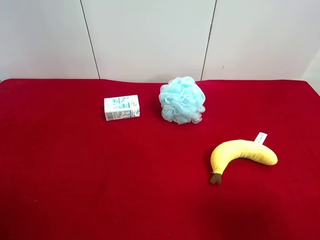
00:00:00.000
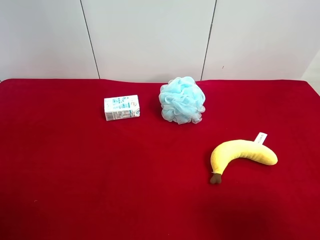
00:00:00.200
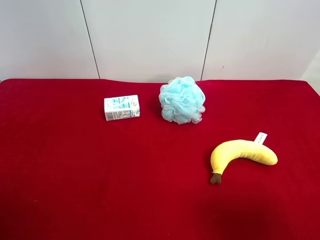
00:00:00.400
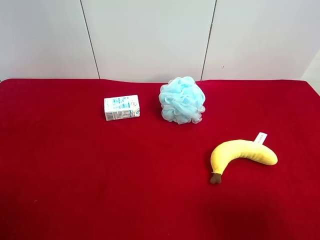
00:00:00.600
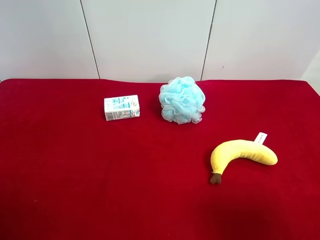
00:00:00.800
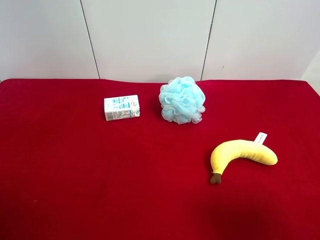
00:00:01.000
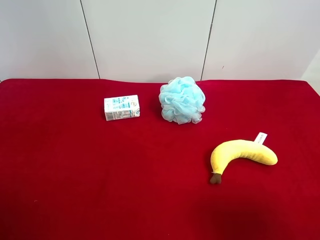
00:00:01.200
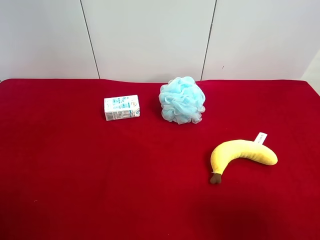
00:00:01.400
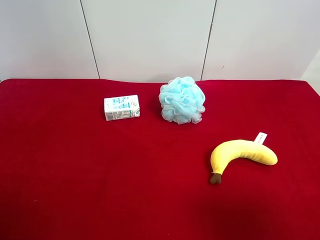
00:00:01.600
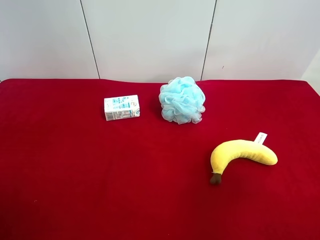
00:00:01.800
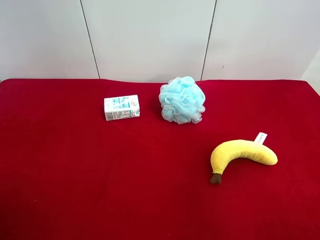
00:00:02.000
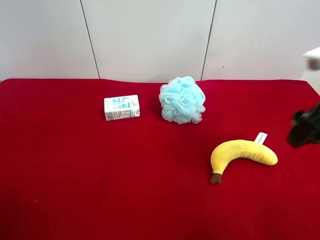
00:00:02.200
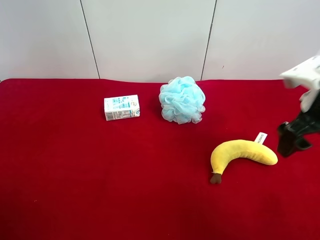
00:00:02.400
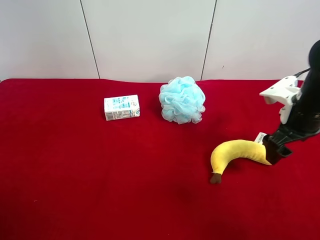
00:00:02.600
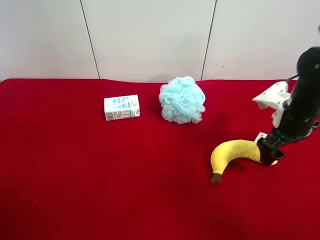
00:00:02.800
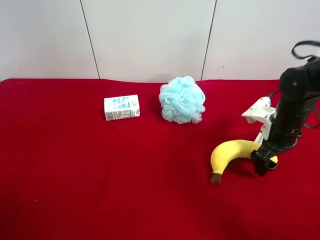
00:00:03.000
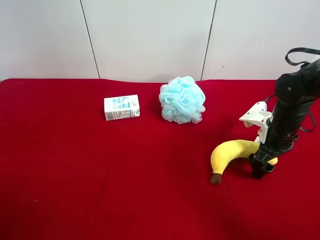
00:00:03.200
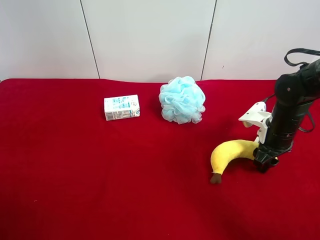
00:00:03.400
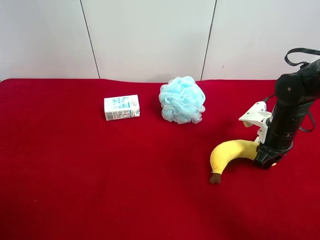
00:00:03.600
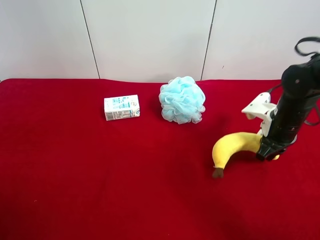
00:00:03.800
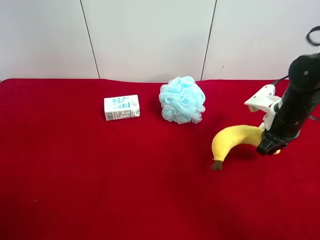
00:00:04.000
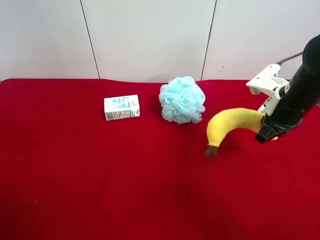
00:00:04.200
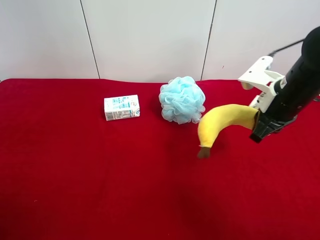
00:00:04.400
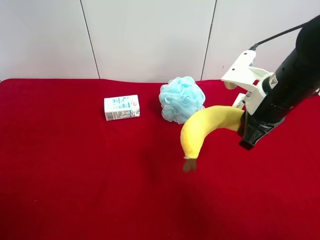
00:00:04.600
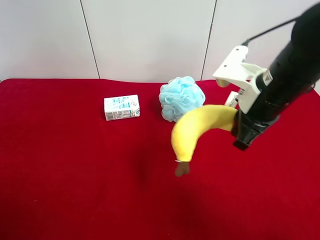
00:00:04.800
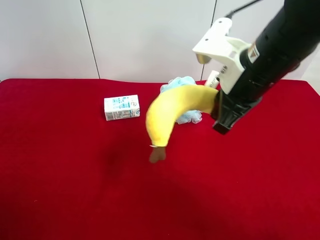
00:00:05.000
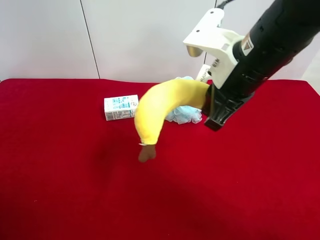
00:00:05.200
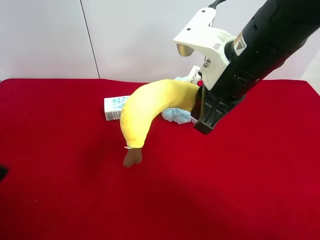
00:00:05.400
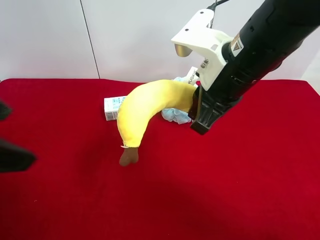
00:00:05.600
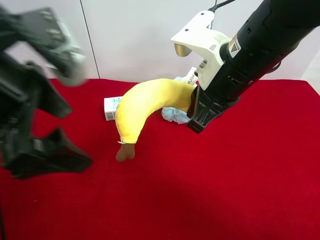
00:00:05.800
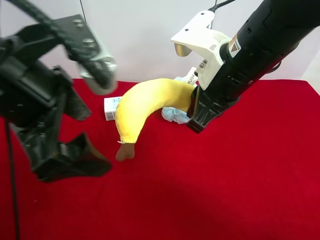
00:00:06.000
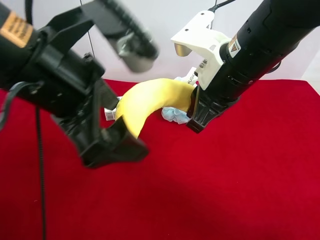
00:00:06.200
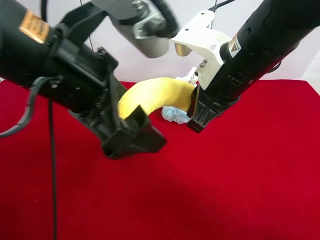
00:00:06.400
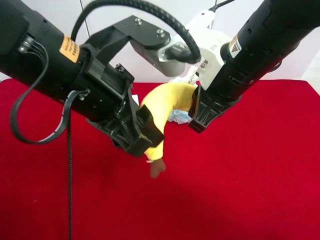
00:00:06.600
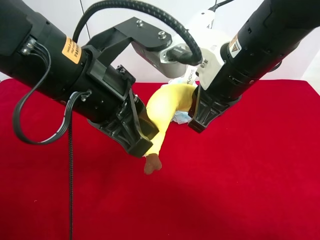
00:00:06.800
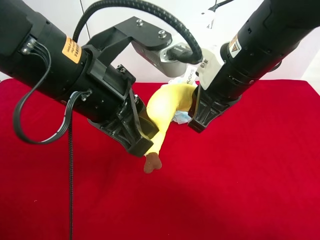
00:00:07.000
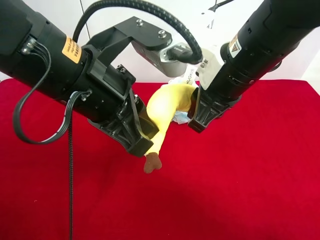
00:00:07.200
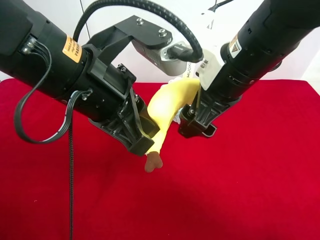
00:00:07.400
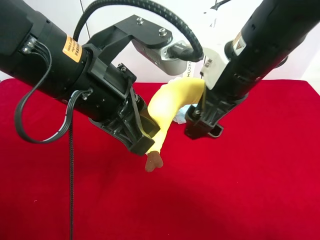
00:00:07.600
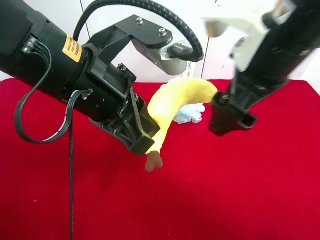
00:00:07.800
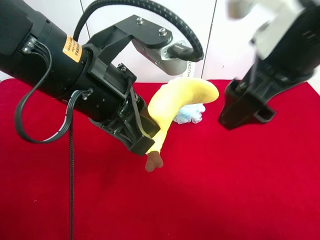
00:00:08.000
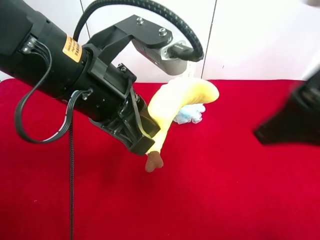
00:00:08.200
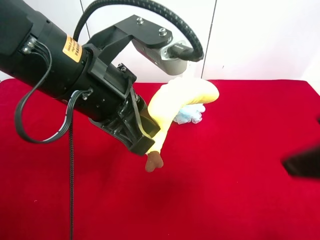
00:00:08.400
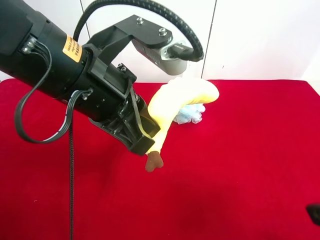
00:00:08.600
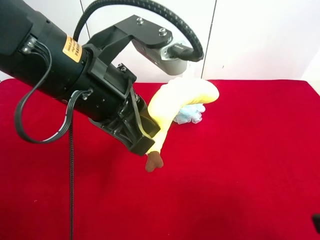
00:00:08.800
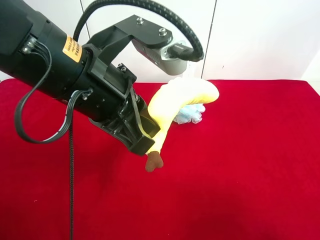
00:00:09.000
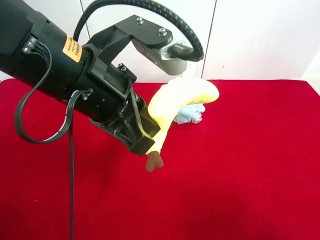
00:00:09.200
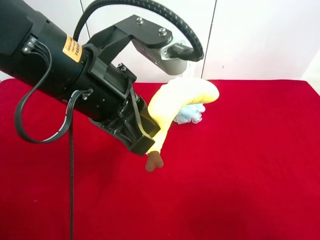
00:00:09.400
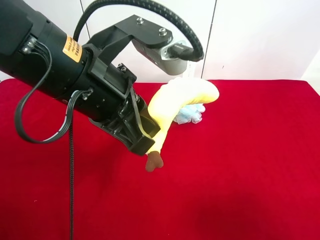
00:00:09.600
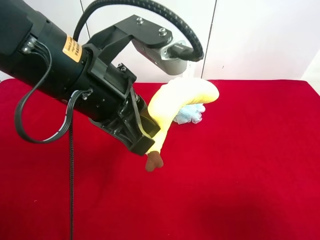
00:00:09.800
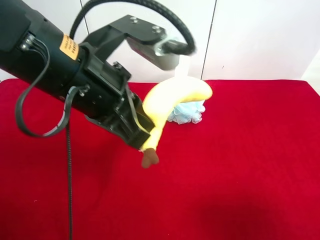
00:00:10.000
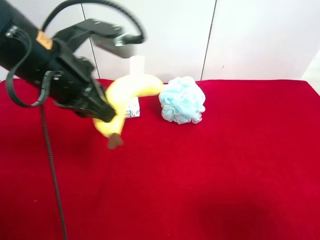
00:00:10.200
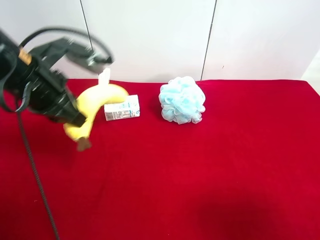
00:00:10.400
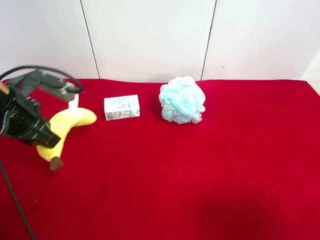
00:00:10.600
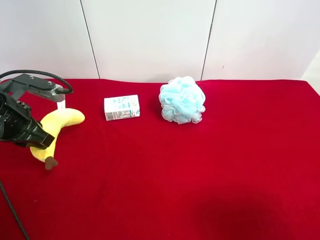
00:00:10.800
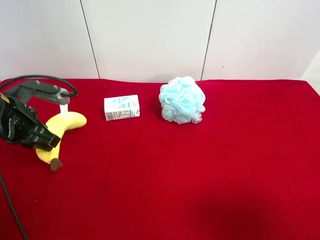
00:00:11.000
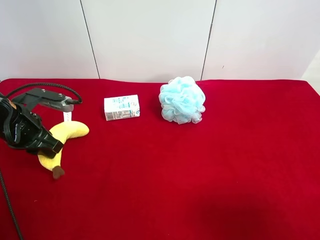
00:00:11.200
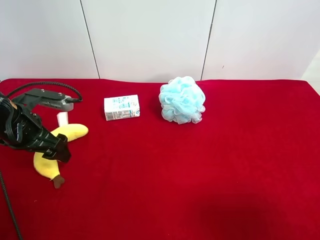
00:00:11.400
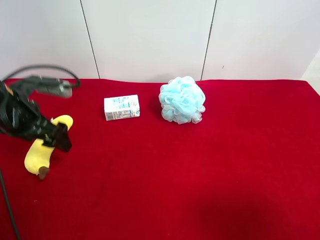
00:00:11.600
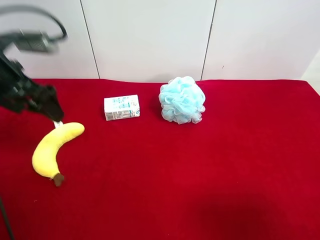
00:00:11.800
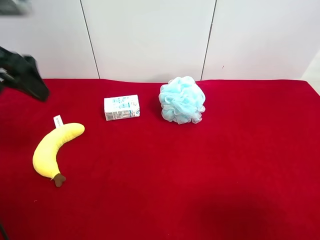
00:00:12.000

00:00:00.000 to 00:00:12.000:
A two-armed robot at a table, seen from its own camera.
Task of the whole recording: use the right gripper to pick up the item and transfer it from the right gripper to the left gripper.
Step, 00:00:00.000 to 00:00:03.400: Use the right gripper to grab the plush banana on the right side of the table.
Step, 00:00:03.600 to 00:00:07.600: Pass the plush banana to the left gripper.
Step, 00:00:07.800 to 00:00:11.400: The left gripper places plush banana on the left side of the table.
00:00:01.600 to 00:00:03.000: The right gripper moves forward and downward, some 30 cm.
00:00:03.000 to 00:00:04.400: The right gripper goes approximately 10 cm upward and to the left, and closes.
00:00:04.400 to 00:00:06.000: The right gripper shifts roughly 15 cm to the left and upward, while the left gripper heads to the right and forward, covering some 25 cm.
00:00:06.000 to 00:00:07.600: The left gripper changes place by about 5 cm, and closes its fingers. Meanwhile the right gripper opens its fingers.
00:00:07.600 to 00:00:09.000: The right gripper shifts approximately 25 cm backward and to the right.
00:00:09.000 to 00:00:10.400: The left gripper moves to the left, forward and downward, approximately 15 cm.
00:00:10.400 to 00:00:12.000: The left gripper travels upward and to the left by some 10 cm, and opens up.
